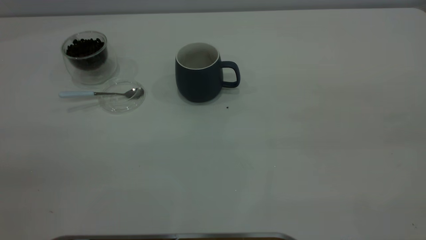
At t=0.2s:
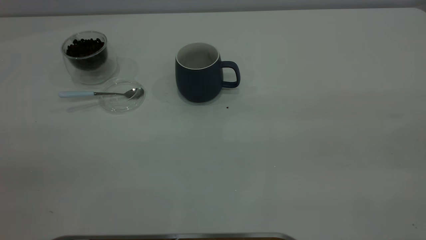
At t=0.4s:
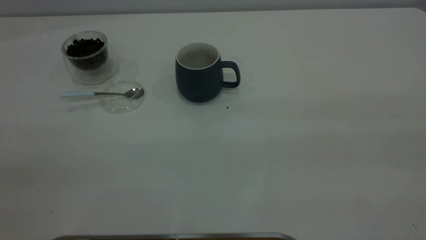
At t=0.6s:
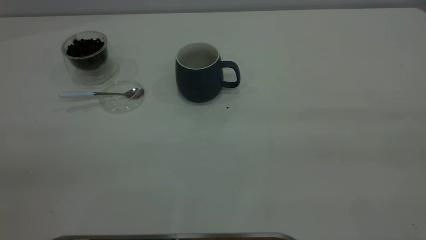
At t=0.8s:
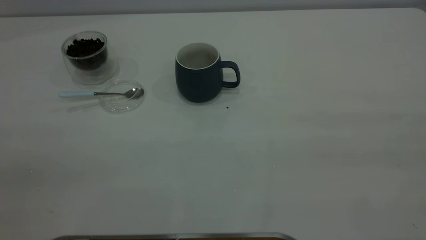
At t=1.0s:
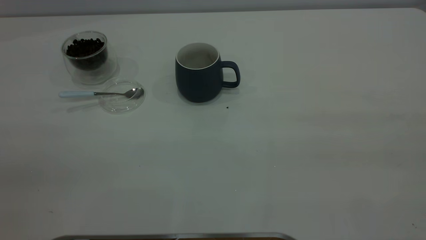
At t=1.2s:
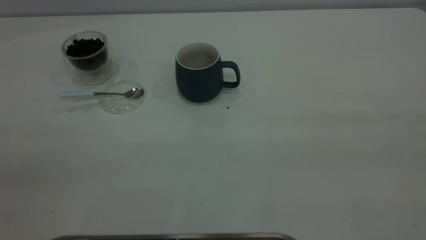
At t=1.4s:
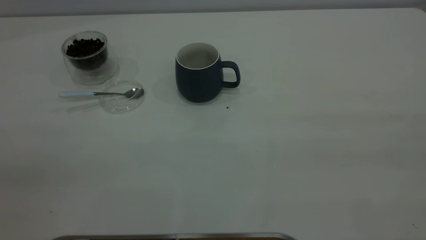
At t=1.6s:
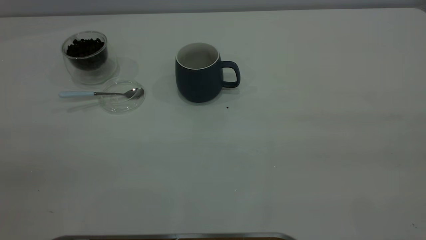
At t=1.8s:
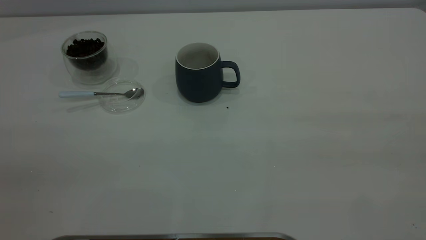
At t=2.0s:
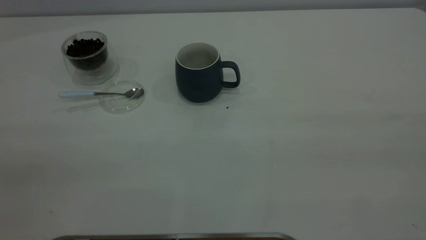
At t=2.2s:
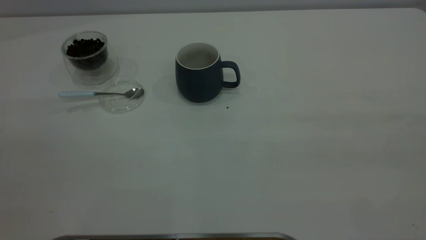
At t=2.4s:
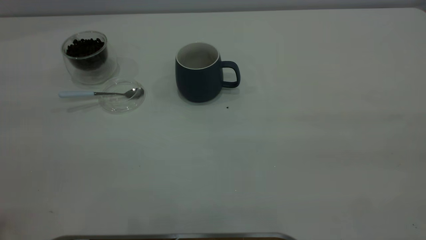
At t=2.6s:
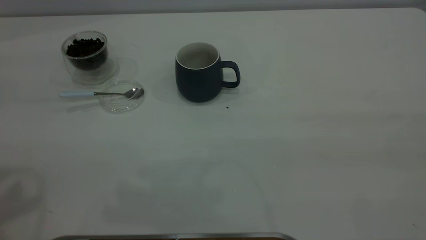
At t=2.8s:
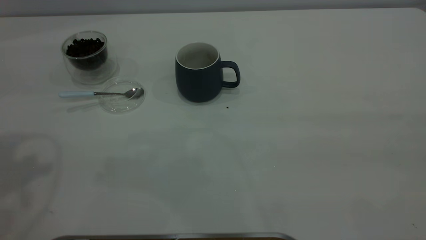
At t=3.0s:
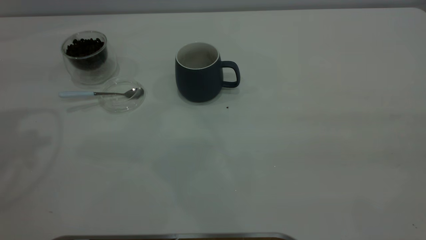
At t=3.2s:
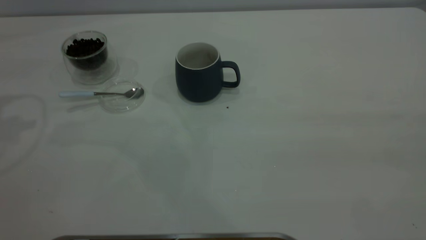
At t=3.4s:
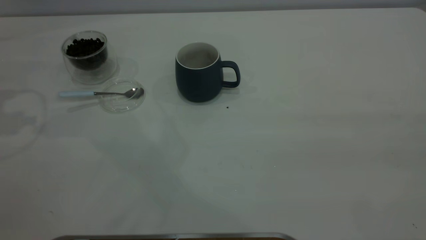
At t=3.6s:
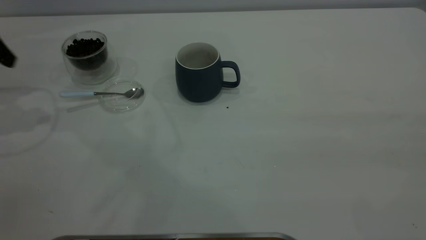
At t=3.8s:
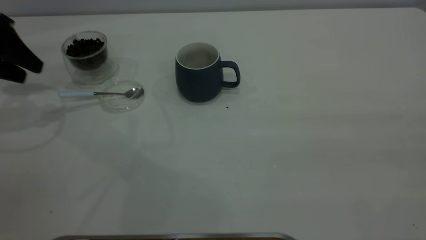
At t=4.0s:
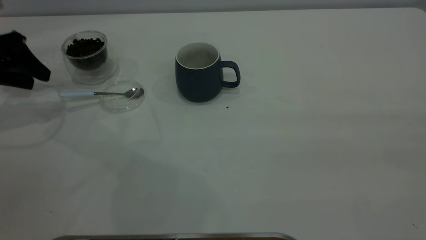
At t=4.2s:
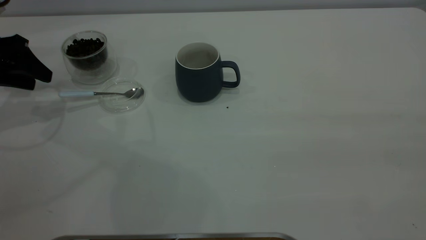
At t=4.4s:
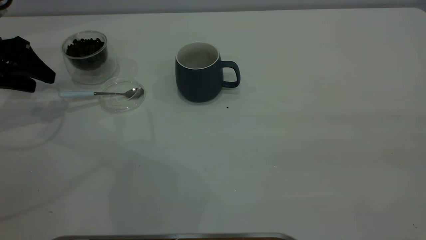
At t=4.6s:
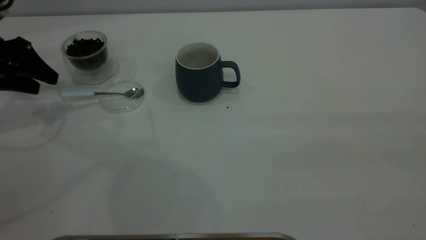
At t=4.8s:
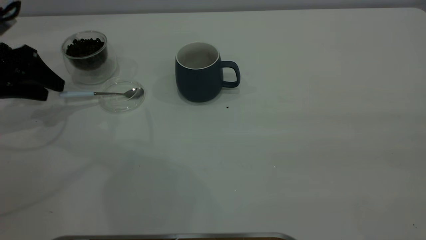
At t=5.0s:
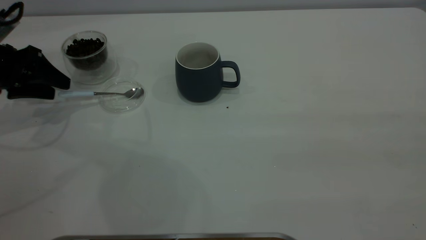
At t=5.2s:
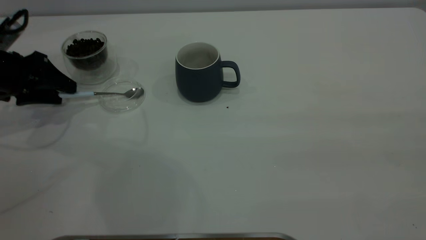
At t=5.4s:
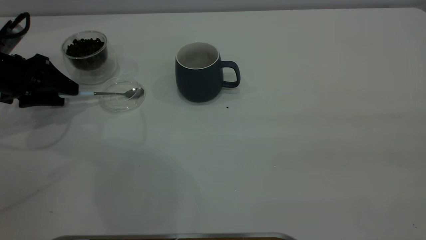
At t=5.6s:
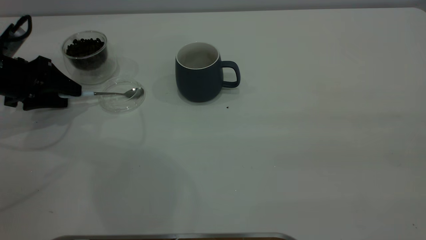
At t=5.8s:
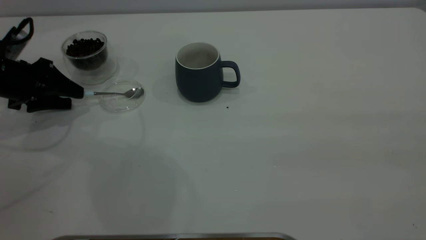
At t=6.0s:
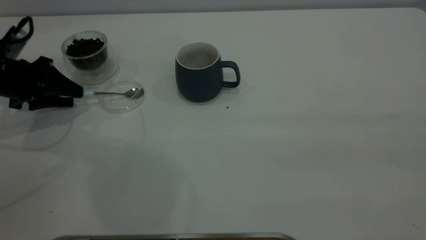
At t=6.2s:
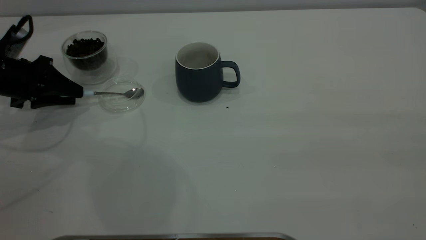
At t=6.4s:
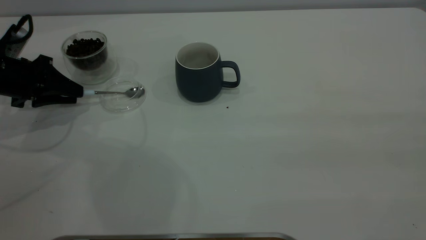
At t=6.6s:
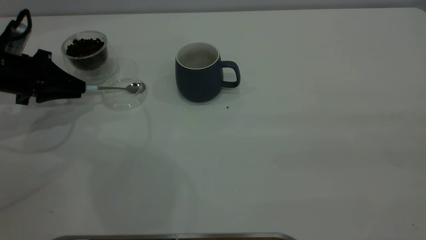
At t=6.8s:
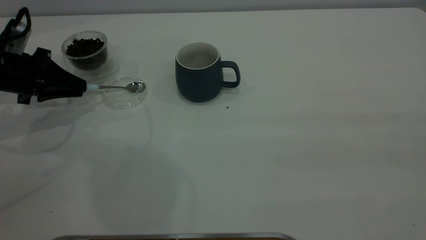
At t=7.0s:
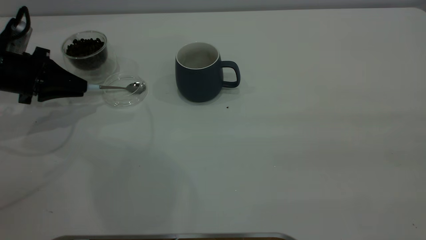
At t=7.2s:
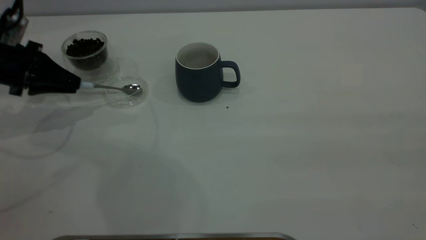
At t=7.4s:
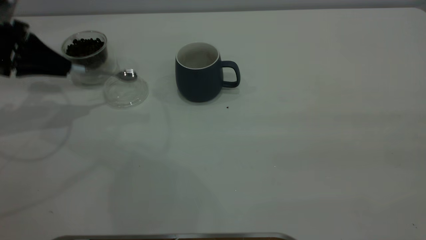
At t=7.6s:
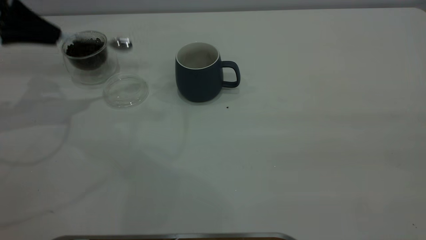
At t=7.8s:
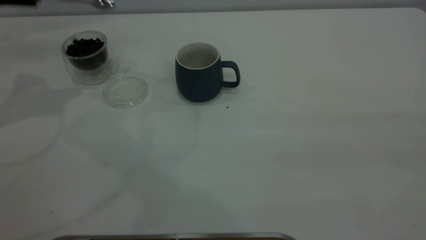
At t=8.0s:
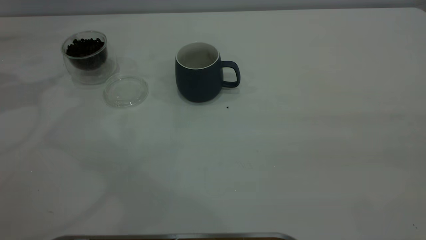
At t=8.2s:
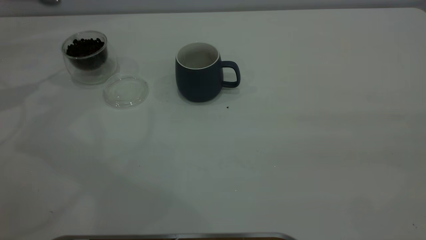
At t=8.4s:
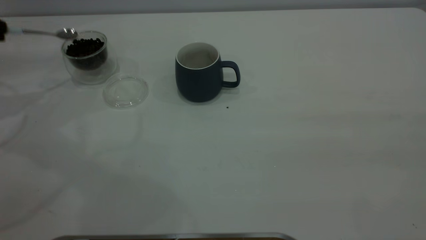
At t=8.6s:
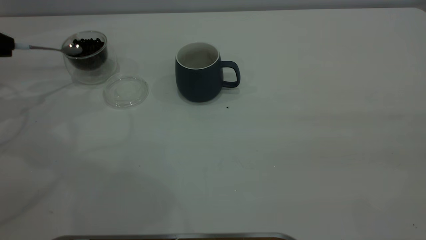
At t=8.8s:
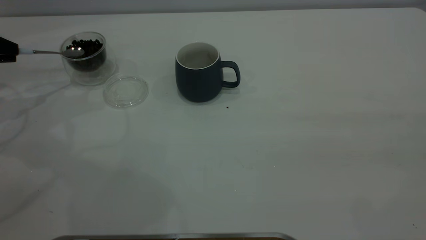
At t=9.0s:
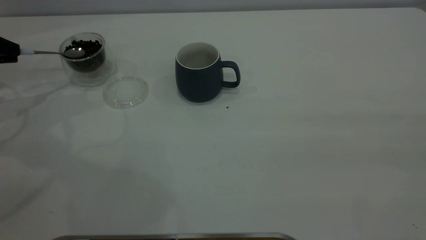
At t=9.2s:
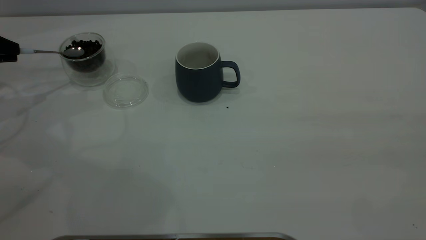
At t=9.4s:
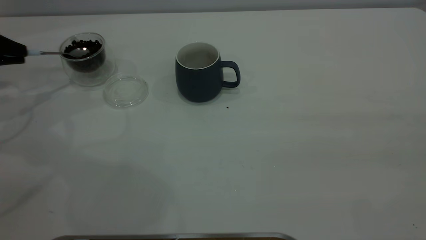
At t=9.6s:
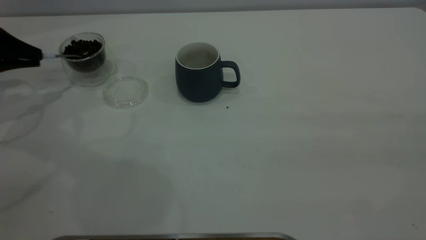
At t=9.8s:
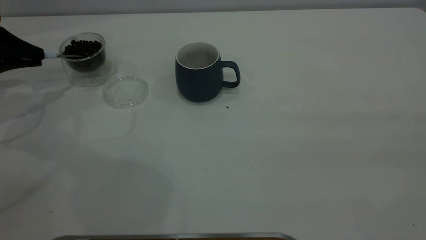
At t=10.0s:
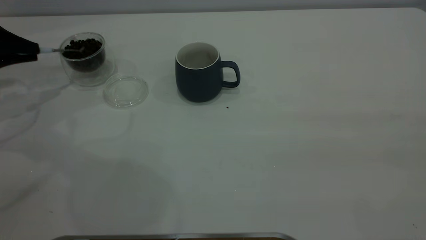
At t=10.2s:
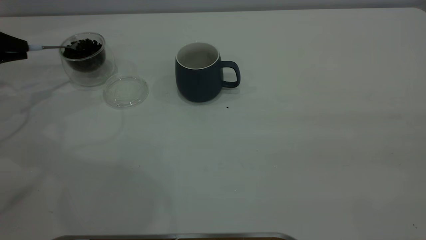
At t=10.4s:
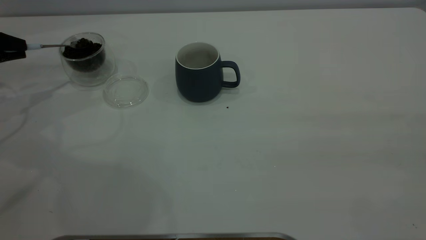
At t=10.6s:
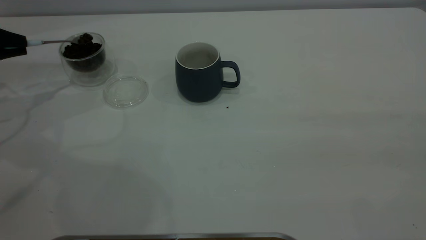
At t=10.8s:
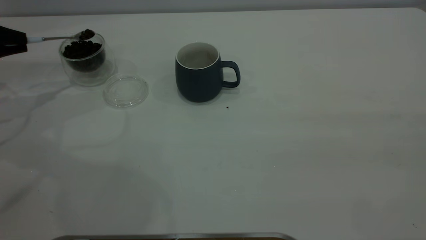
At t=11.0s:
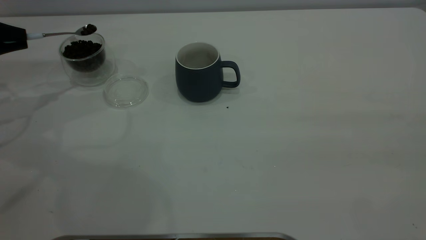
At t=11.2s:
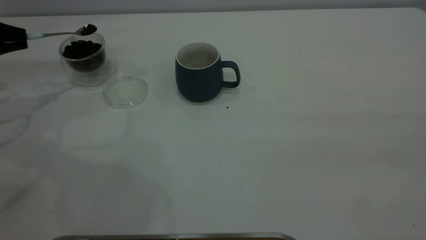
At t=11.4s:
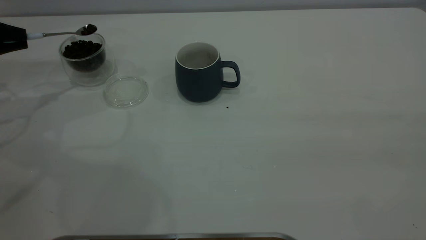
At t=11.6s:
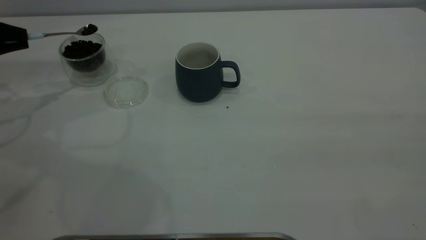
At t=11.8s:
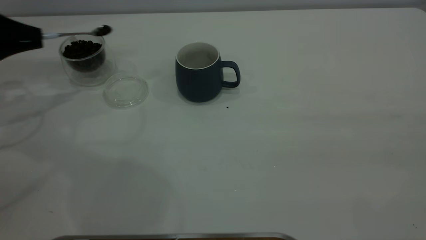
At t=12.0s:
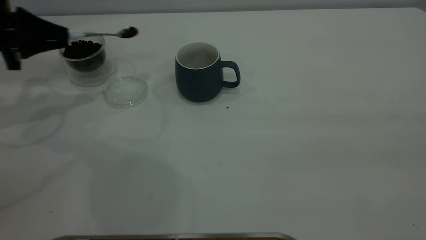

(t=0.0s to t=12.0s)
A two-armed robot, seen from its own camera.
Task of the whole recording: the right gripper place the grey cup in the center of the table, the left gripper take the blue spoon from the cup lid and scoop out the coffee beans from the coffee cup and put them into the grey cup, the left gripper put the spoon back into the cup lid.
Step, t=0.0s - t=7.6s: Pick up the spoon.
t=3.0s - t=4.4s: The left gripper moves downward and forward, roughly 20 cm.
t=4.4s - t=6.0s: The left gripper is displaced downward by roughly 5 cm, and closes.
t=6.0s - t=7.6s: The left gripper moves upward, approximately 15 cm, and closes its fingers.
t=7.6s - t=9.0s: The left gripper is displaced to the left and downward by roughly 10 cm.
t=10.4s - t=12.0s: The left gripper heads to the right, covering roughly 10 cm.

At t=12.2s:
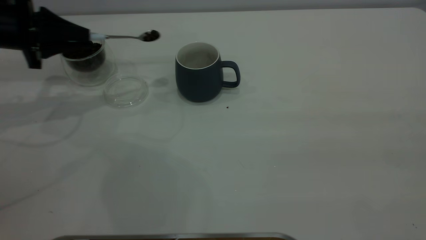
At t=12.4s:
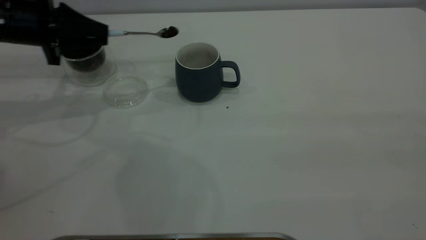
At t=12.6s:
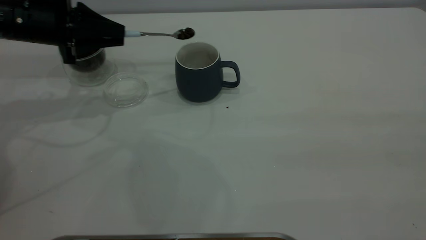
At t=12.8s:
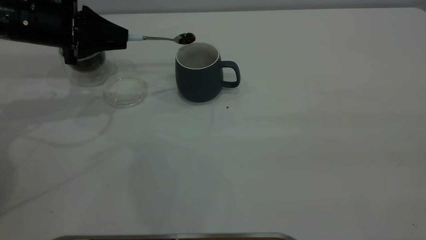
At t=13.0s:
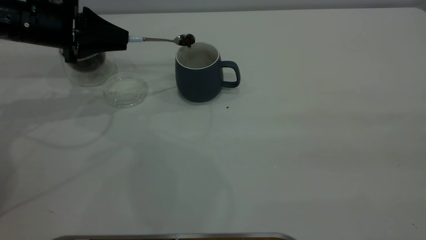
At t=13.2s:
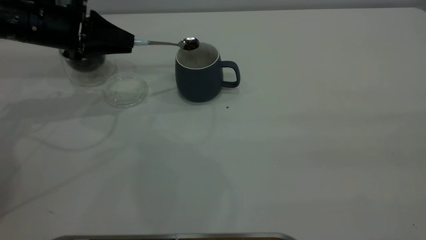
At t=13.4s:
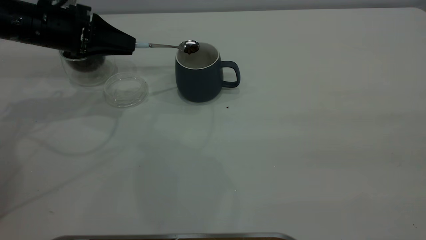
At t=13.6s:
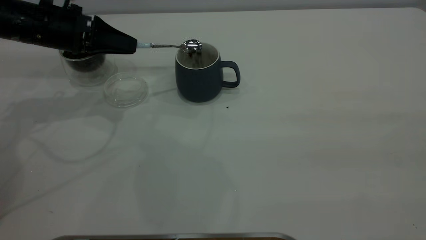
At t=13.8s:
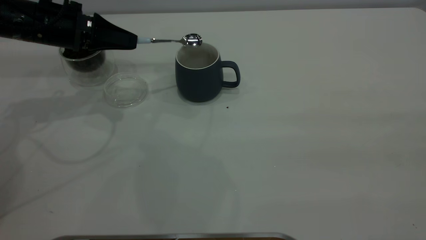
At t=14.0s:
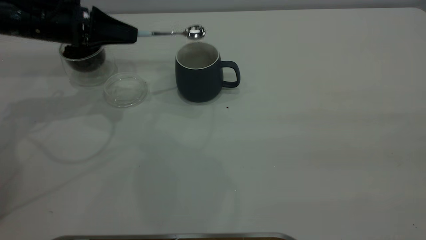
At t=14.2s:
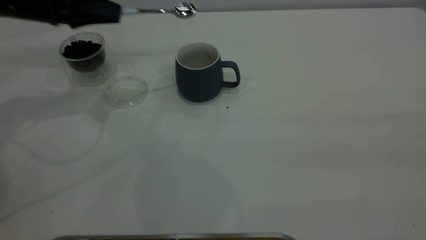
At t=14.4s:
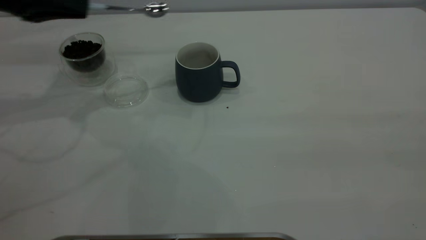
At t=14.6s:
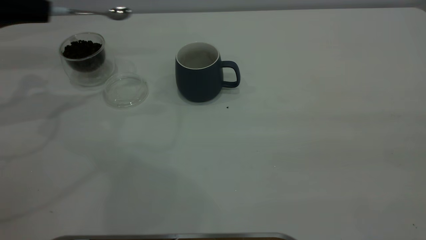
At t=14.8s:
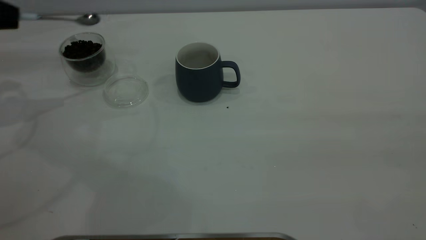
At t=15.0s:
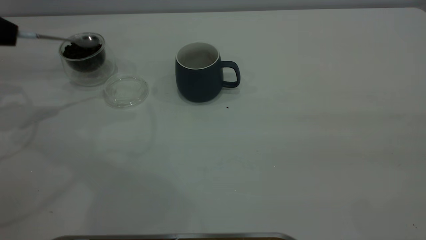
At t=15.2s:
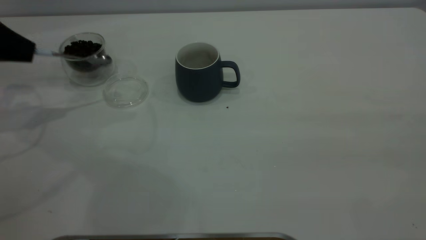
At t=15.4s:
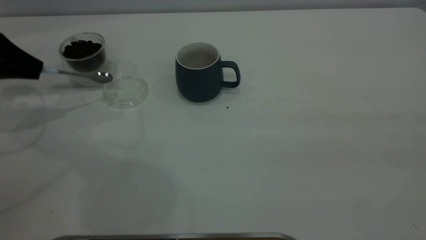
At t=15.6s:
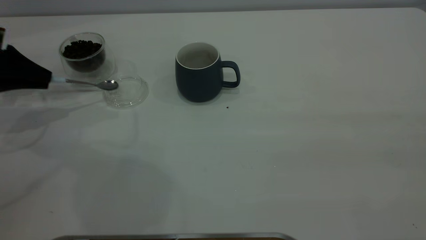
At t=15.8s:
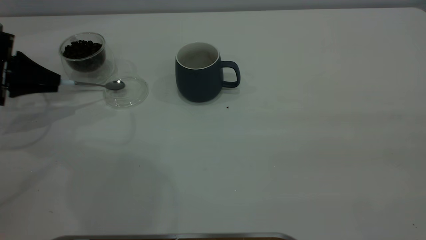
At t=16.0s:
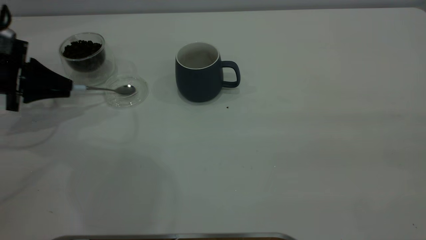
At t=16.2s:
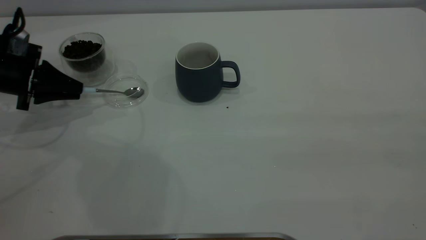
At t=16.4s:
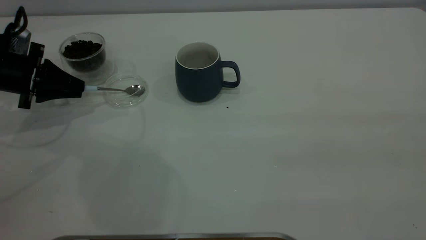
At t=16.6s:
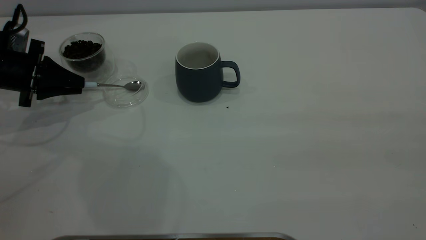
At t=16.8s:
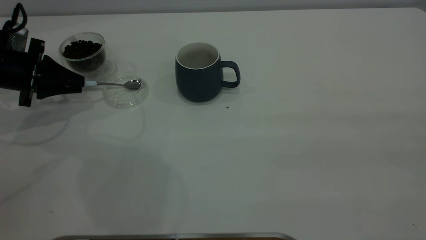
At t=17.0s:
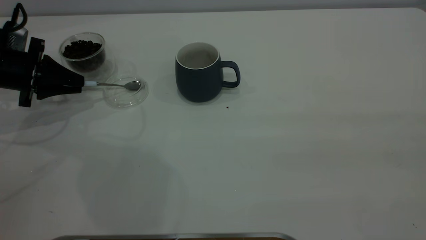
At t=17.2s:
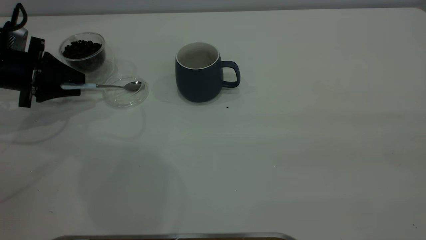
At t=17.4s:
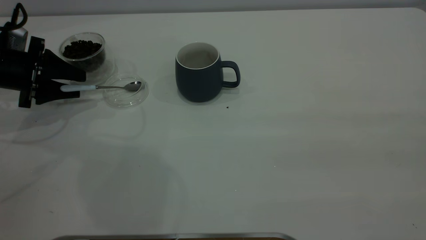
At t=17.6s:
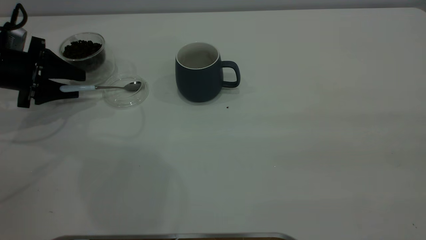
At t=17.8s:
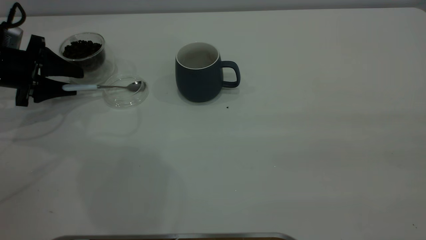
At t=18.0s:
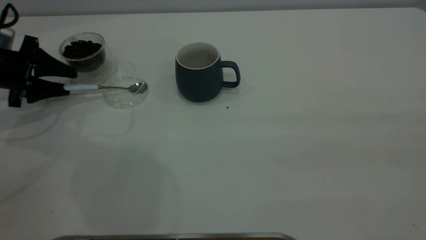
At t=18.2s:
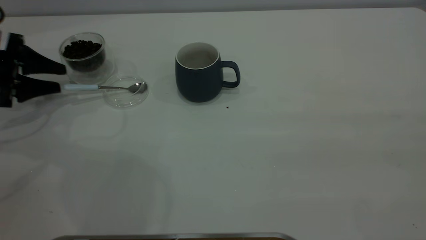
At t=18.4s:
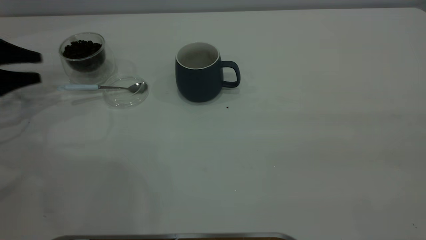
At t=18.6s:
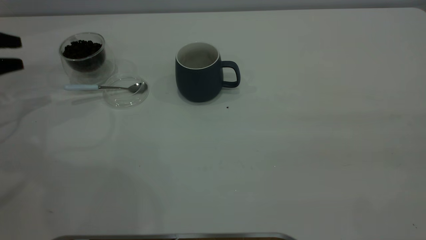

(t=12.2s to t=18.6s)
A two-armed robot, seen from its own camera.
Task of the whole recording: the right gripper place the grey cup in the center of the table, the left gripper take the blue spoon from the cup lid and scoop out the coffee beans from the coffee cup and put them into the grey cup, the left gripper put the spoon back into the cup lid.
t=12.2s - t=13.8s: The left gripper goes approximately 5 cm to the right.
t=13.8s - t=15.4s: The left gripper goes about 15 cm to the left.
t=15.4s - t=17.0s: The left gripper goes about 5 cm downward.
t=17.0s - t=18.6s: The left gripper heads to the left, covering approximately 10 cm, and opens.
